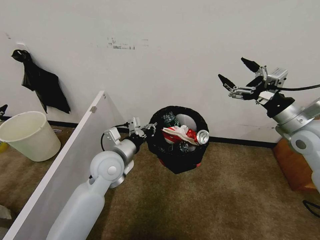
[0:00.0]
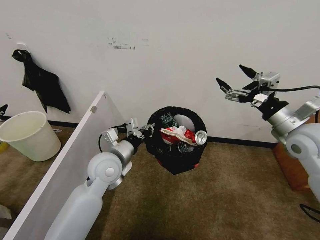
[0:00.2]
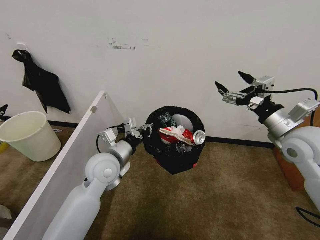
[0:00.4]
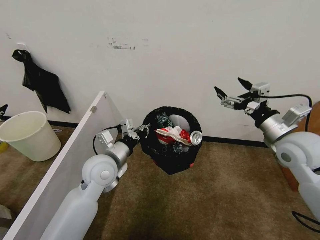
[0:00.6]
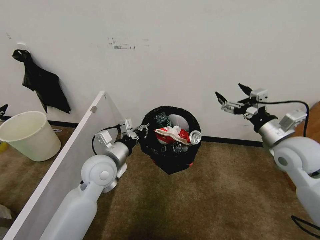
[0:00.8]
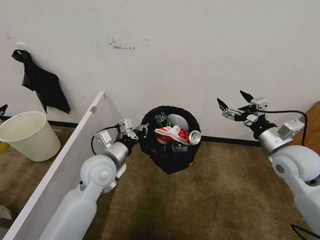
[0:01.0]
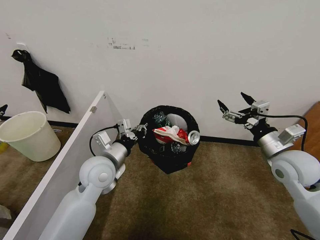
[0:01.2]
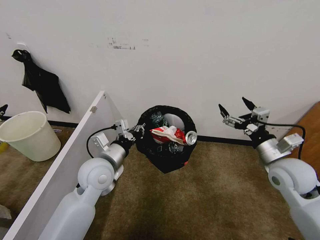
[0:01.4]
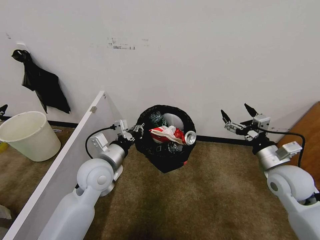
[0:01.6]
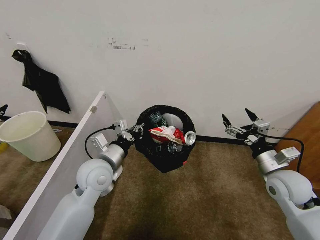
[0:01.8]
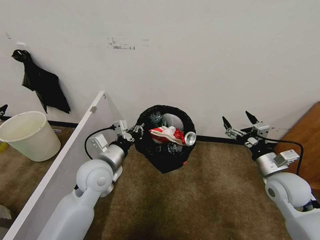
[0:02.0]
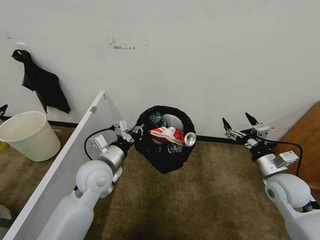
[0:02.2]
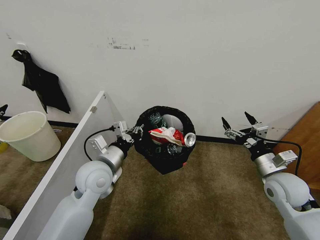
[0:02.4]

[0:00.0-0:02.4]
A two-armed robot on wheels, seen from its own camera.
Task of the whole recording: Pick up the trash bin, then pick up the garbage from the floor and place it into the trash bin.
0:00.0 to 0:01.2: The right gripper moves downward, approximately 10 cm.
0:01.2 to 0:02.4: The right gripper goes roughly 10 cm downward.
